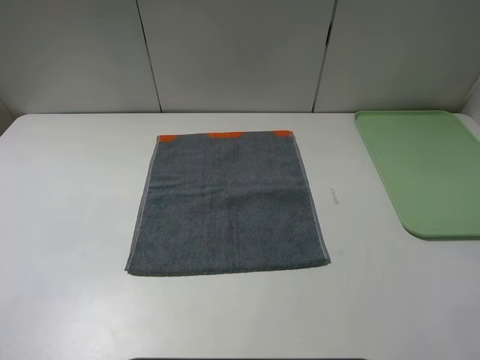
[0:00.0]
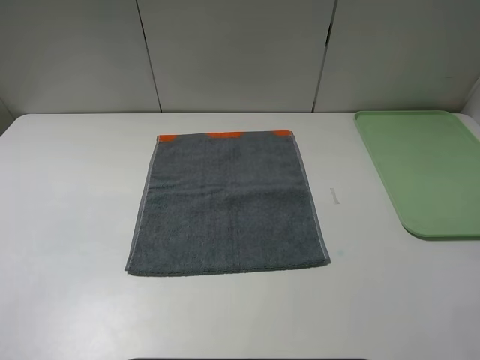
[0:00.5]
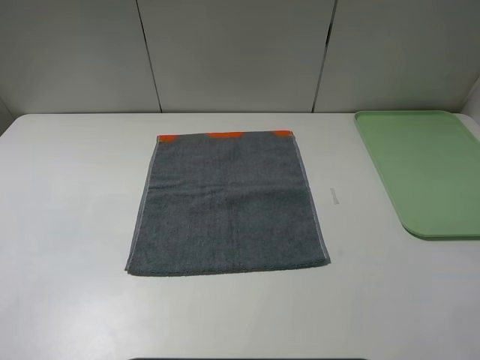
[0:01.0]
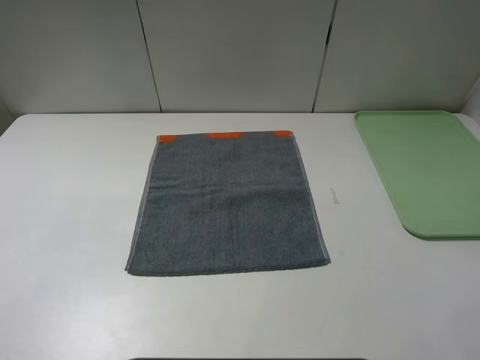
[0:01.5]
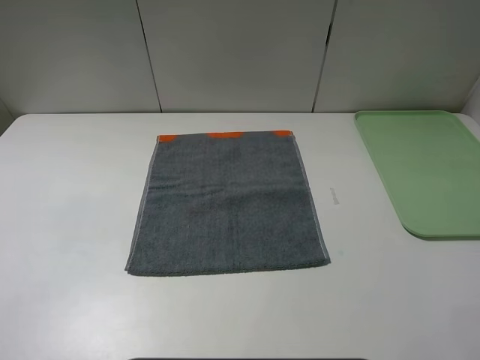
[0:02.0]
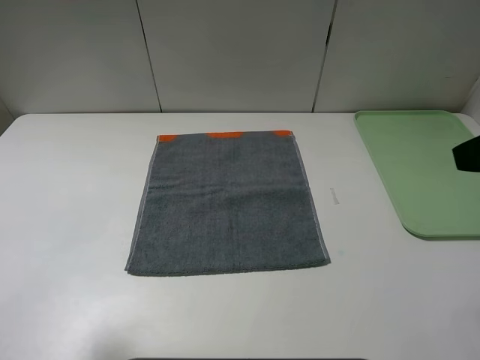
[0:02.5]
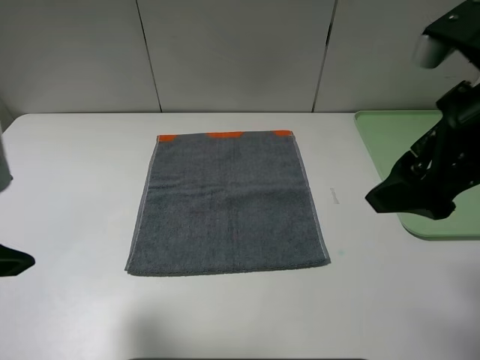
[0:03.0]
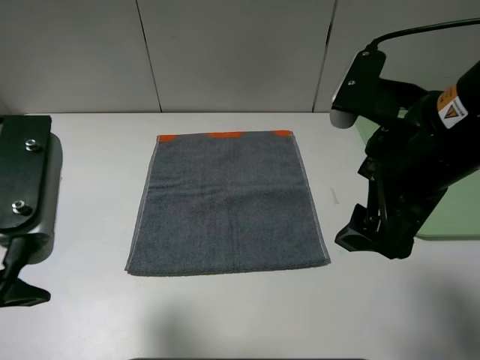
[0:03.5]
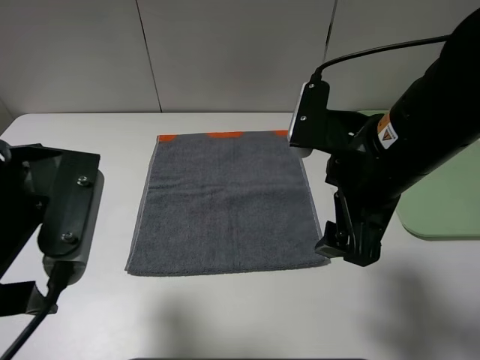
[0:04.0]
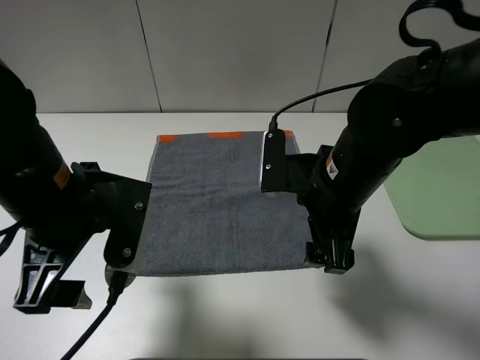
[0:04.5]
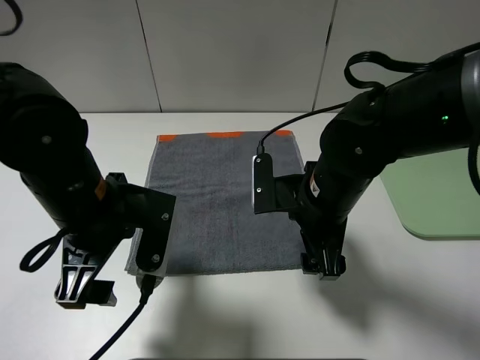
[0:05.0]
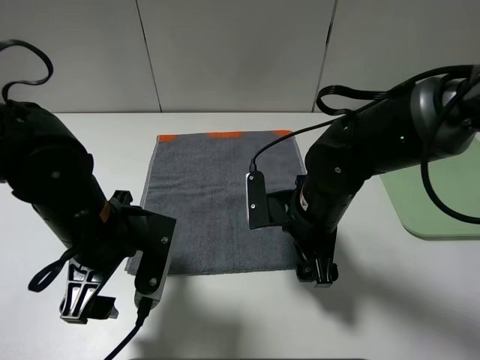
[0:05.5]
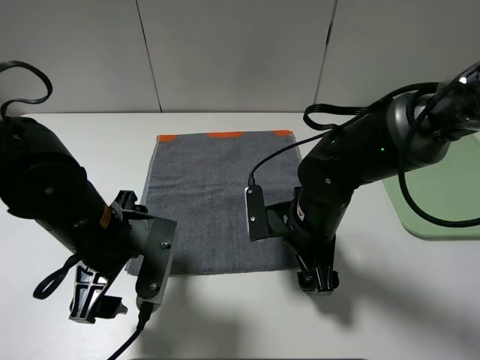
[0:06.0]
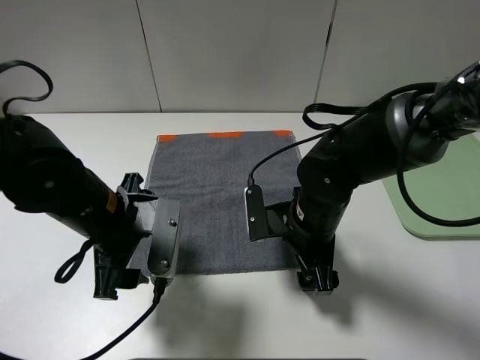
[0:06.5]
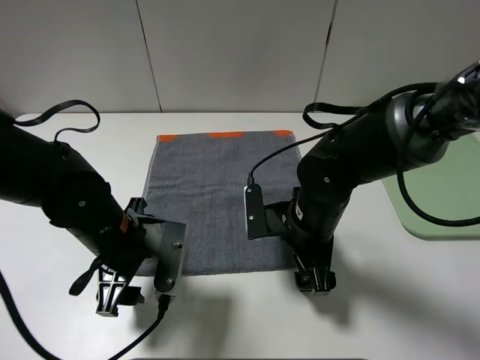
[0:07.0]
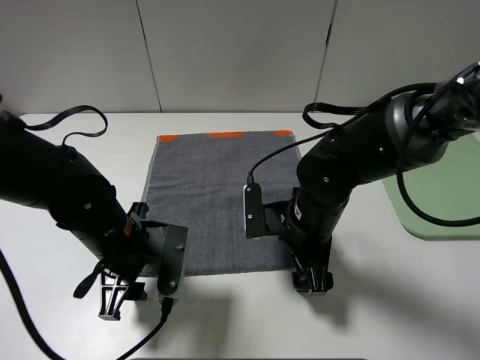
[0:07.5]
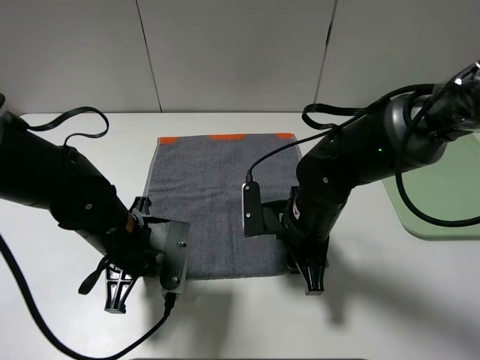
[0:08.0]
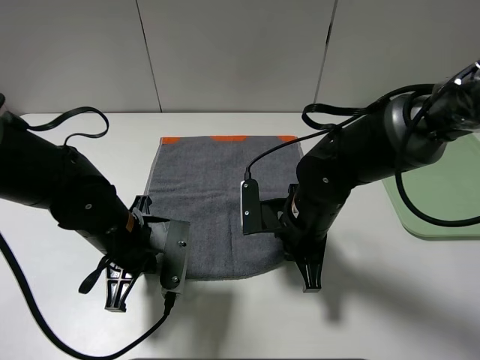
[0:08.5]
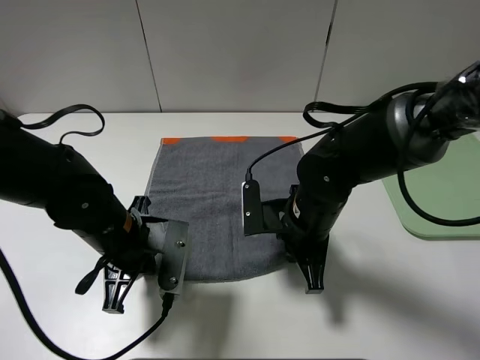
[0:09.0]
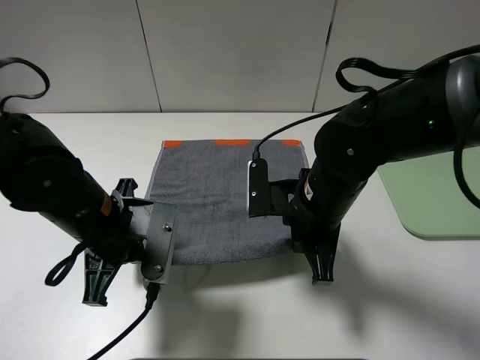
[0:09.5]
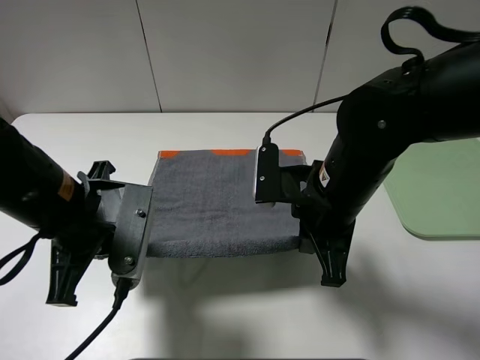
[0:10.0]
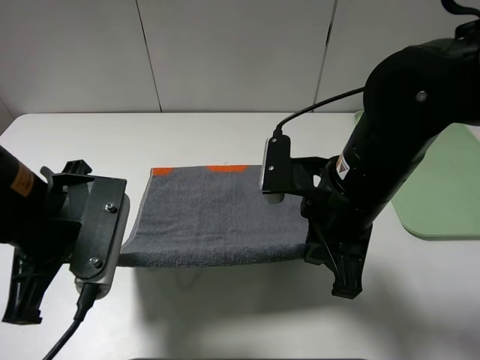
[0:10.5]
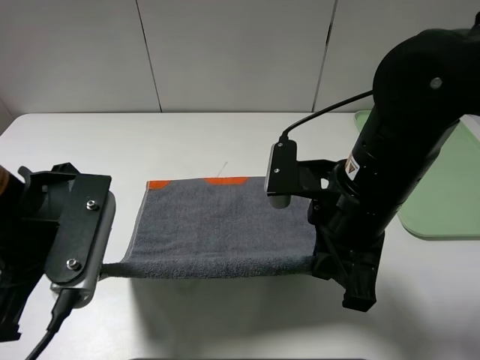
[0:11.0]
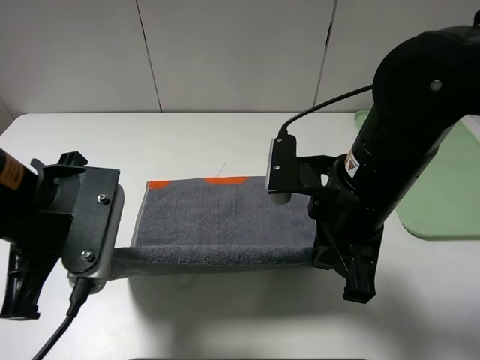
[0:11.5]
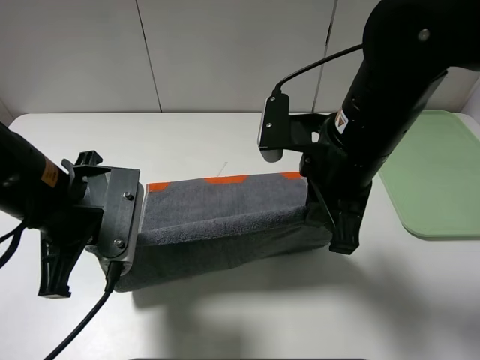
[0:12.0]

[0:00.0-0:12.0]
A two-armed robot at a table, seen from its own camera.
2.0 to 4.0 s: The left gripper heads to the right, forward and downward, covering some 15 cm. The right gripper shifts roughly 20 cm to the left, forward and downward.
4.0 to 6.0 s: The two grippers go some 15 cm downward.
6.0 to 8.0 s: The right gripper closes; the left gripper moves approximately 5 cm, and closes.
8.0 to 10.0 s: Both grippers move upward, about 10 cm. The right gripper closes up.
10.0 to 12.0 s: The right gripper goes approximately 5 cm upward.

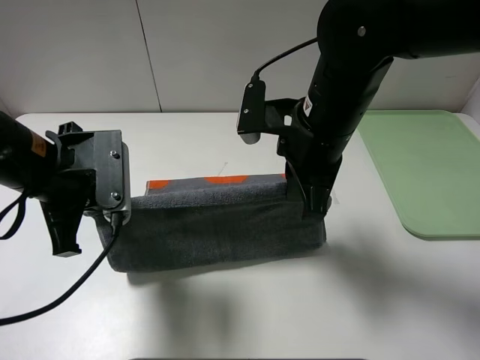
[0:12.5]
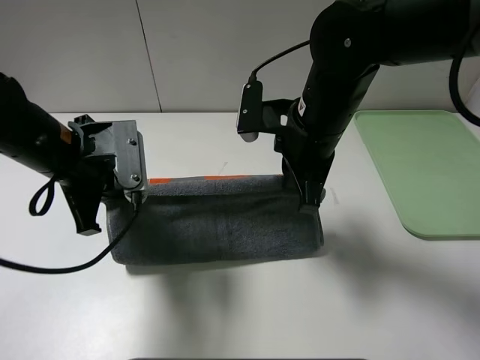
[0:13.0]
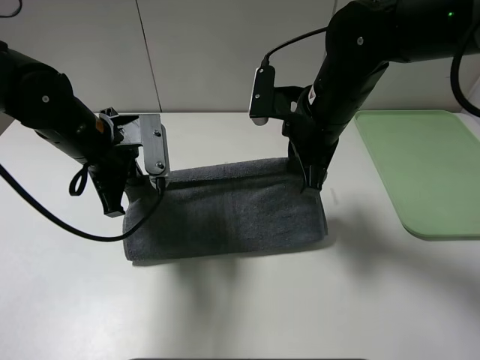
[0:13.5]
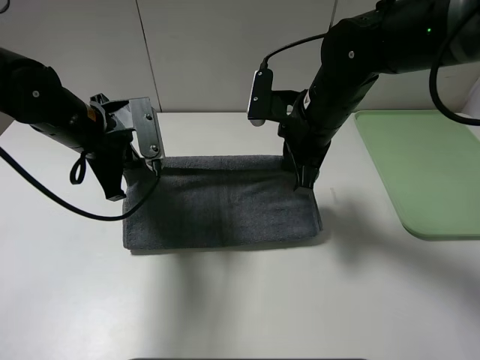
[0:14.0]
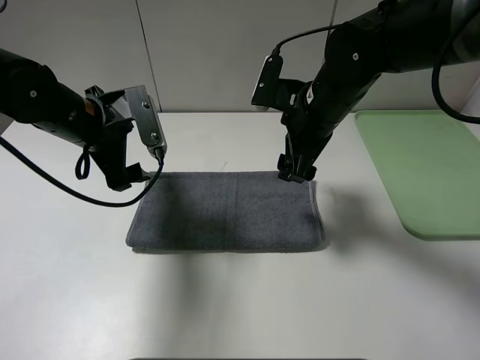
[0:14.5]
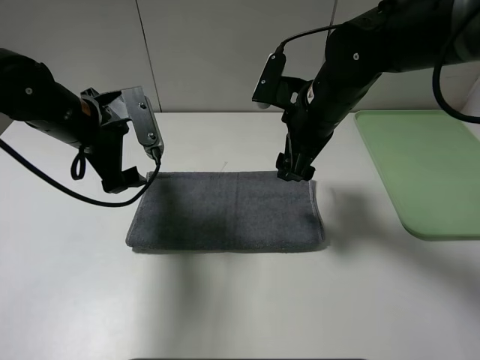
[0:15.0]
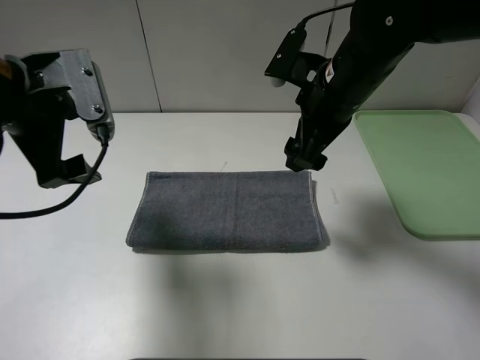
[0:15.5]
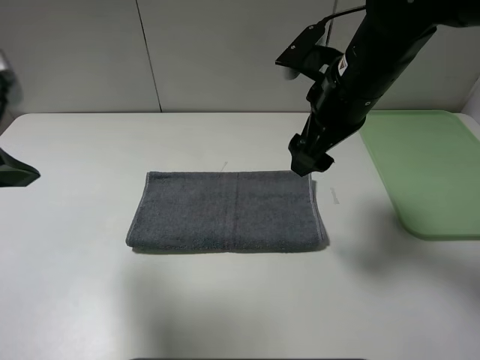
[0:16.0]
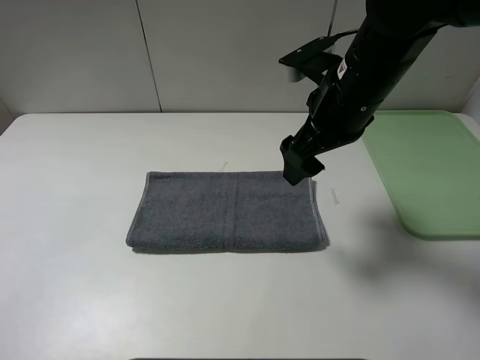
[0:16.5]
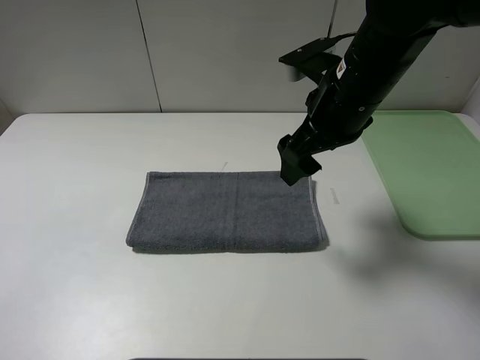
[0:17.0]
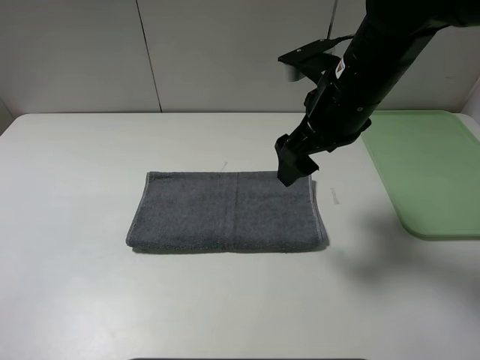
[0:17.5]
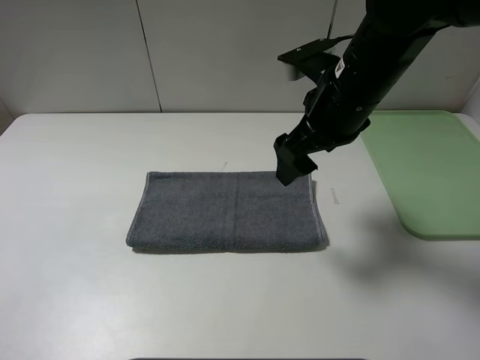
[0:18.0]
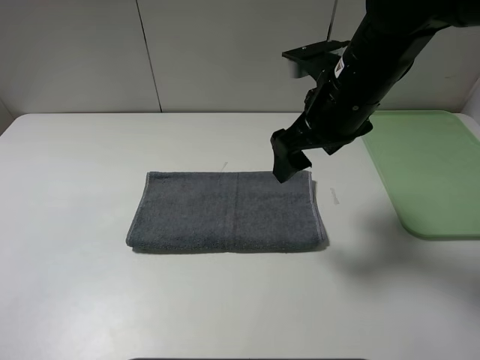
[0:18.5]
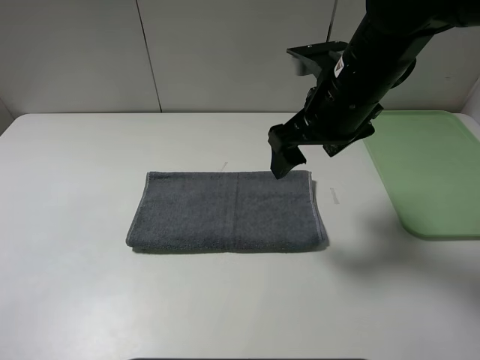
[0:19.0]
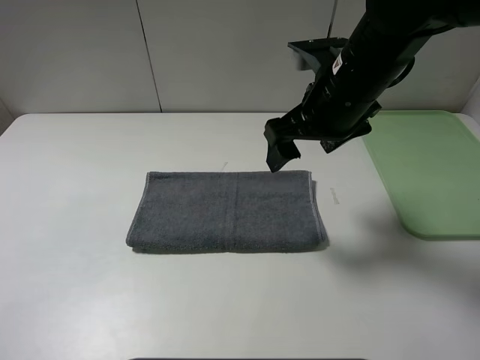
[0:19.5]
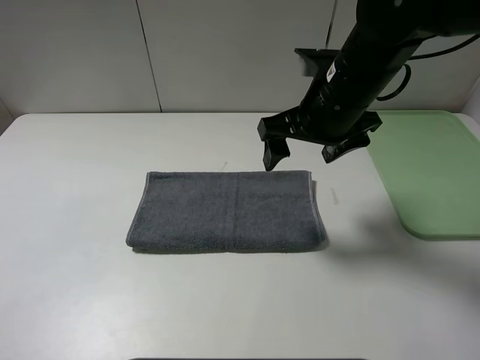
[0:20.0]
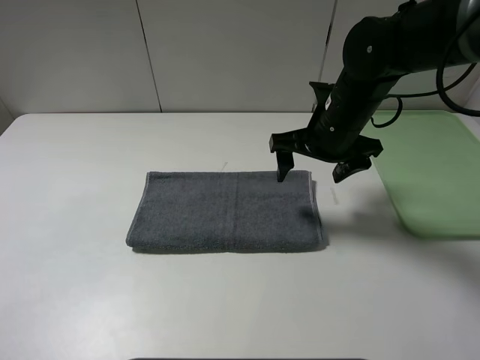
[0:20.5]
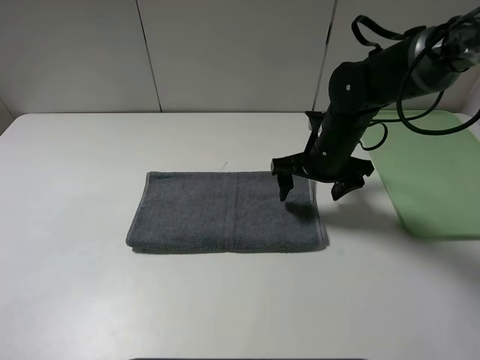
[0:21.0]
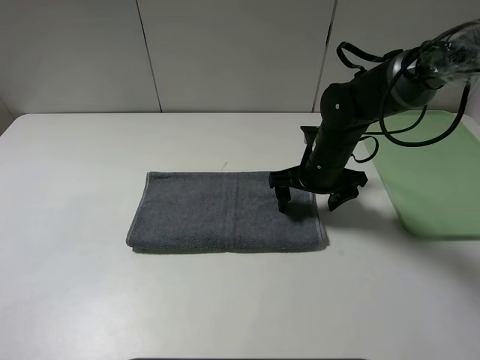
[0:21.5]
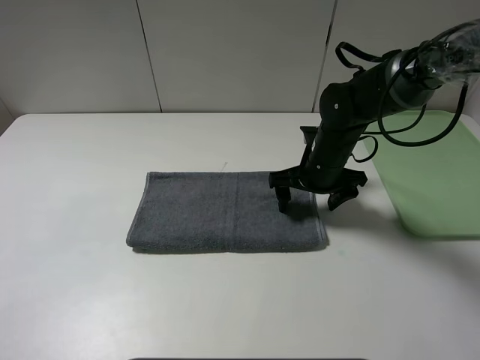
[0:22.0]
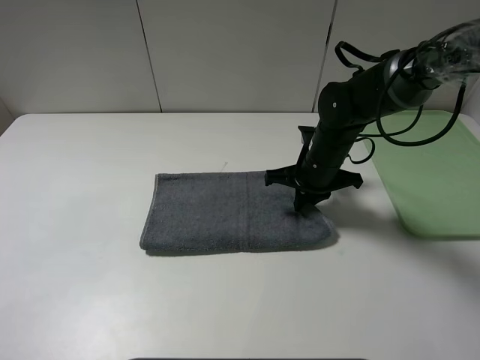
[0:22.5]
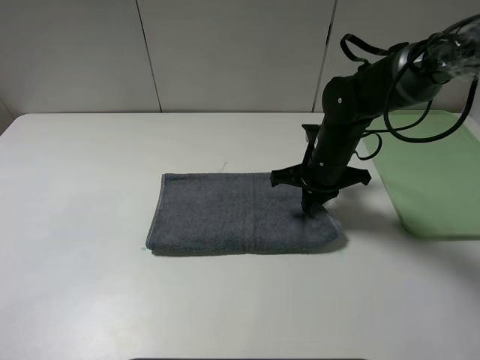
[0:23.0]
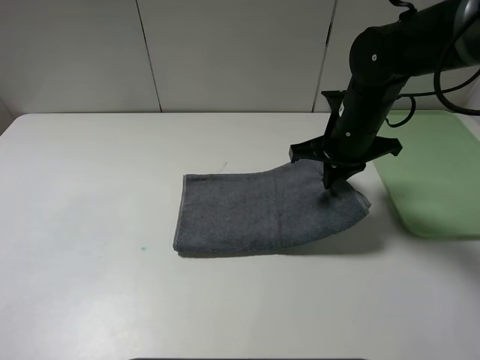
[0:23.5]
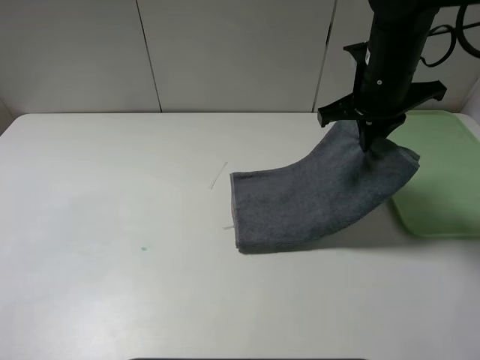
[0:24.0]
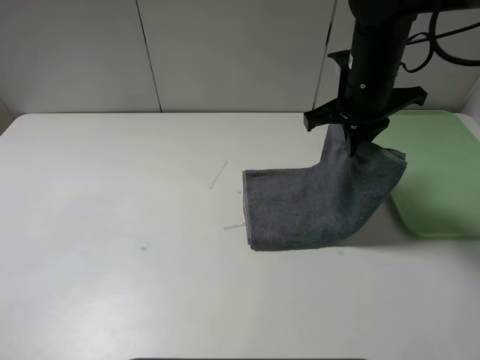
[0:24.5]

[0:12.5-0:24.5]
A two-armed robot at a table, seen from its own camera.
Step, 12.5 to 14.5 s: Fold the grey towel upwards.
12.5 to 14.5 s: Both grippers travel together forward, some 10 cm. The right gripper opens up. The left gripper opens up.
14.5 to 16.5 s: The left gripper heads backward, upward and to the left, covering roughly 35 cm; the right gripper changes place by about 5 cm.
16.5 to 18.5 s: The left gripper shifts roughly 10 cm downward.
18.5 to 20.5 s: The right gripper goes about 5 cm downward.
20.5 to 22.5 s: The right gripper is displaced downward by approximately 10 cm, and closes up.
22.5 to 24.5 s: The right gripper heads upward, covering some 15 cm.

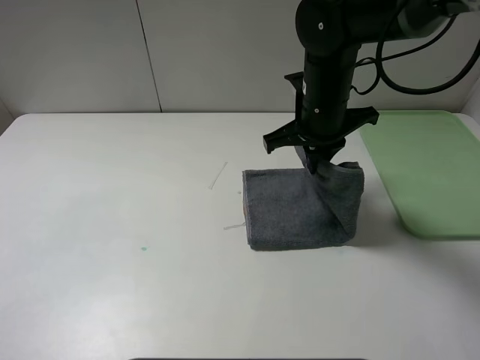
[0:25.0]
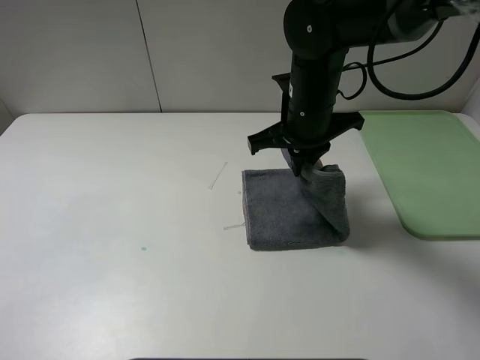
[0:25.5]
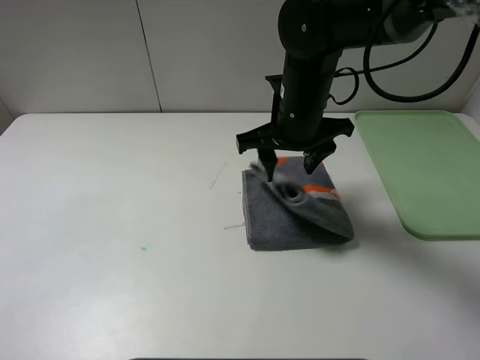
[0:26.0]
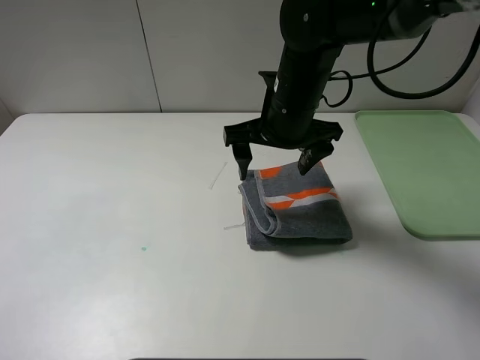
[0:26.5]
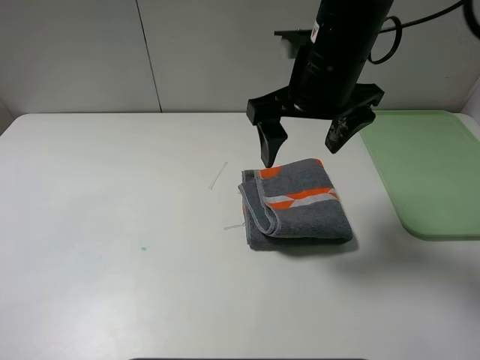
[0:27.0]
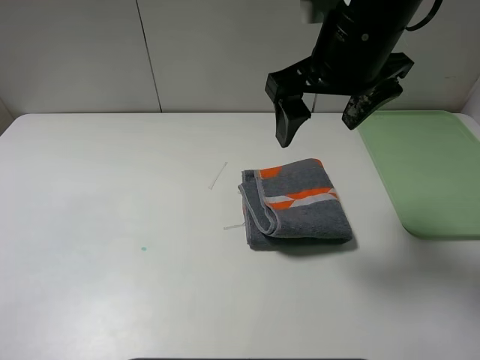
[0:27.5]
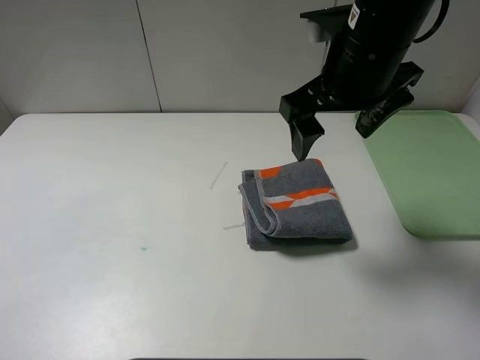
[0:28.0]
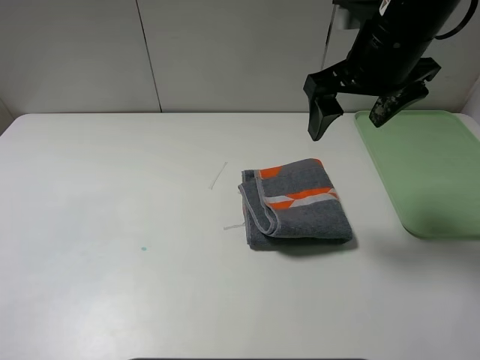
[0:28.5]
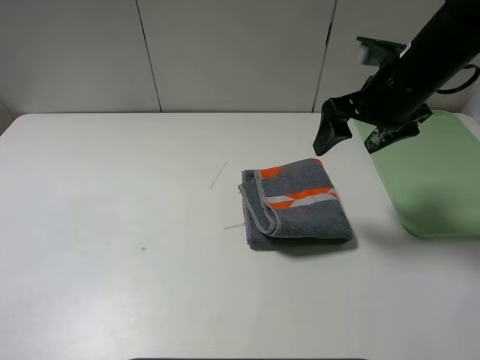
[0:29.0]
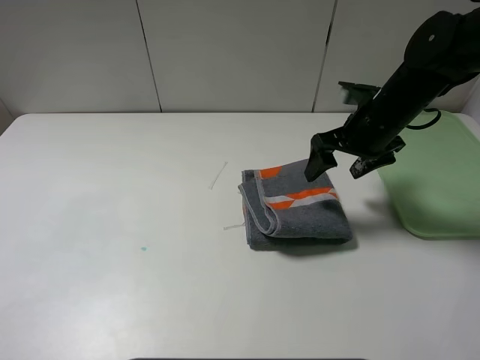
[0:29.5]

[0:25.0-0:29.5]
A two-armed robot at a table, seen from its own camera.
25.0 to 27.0 s: The right gripper goes about 10 cm upward, and opens its fingers.
27.0 to 29.5 s: The right gripper shifts about 15 cm downward, to the right and forward.
